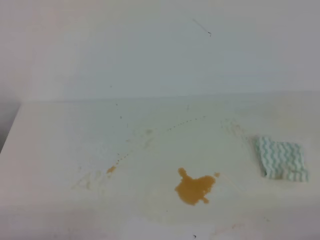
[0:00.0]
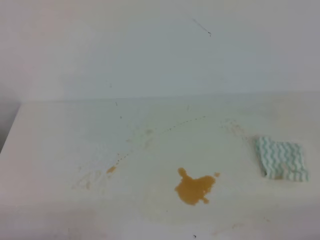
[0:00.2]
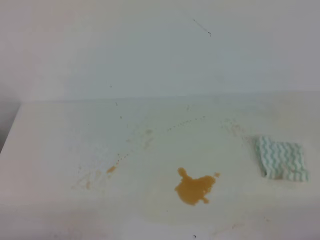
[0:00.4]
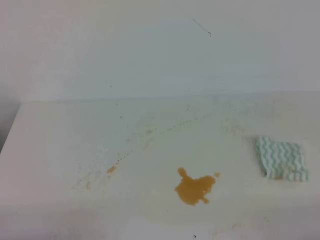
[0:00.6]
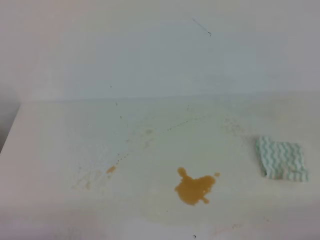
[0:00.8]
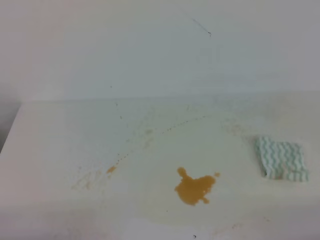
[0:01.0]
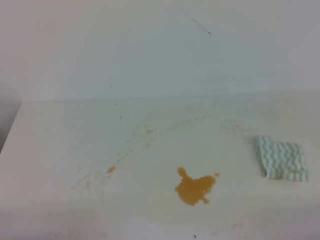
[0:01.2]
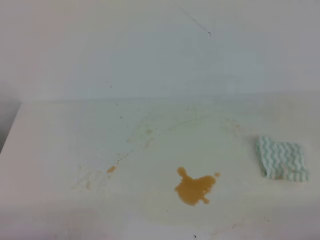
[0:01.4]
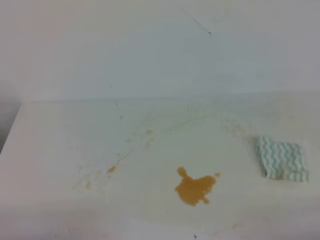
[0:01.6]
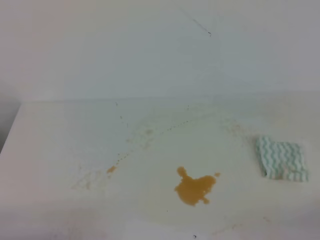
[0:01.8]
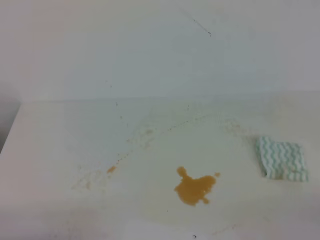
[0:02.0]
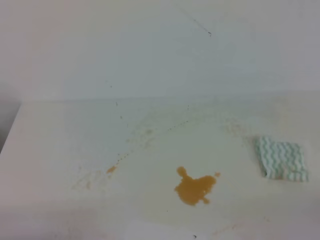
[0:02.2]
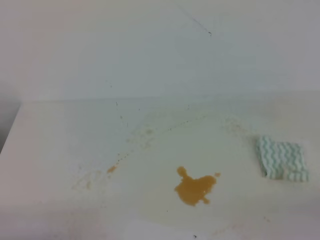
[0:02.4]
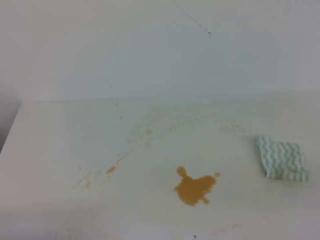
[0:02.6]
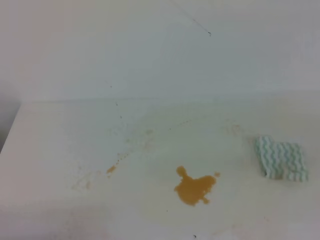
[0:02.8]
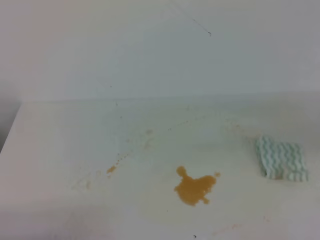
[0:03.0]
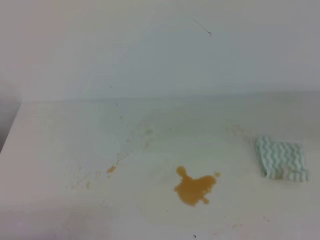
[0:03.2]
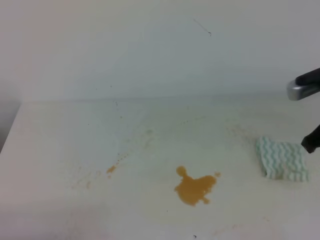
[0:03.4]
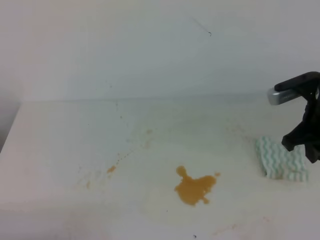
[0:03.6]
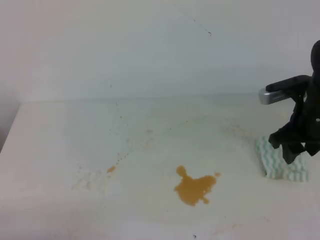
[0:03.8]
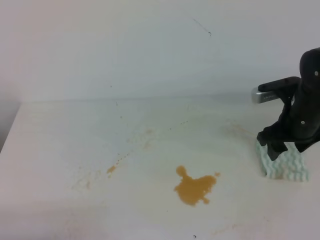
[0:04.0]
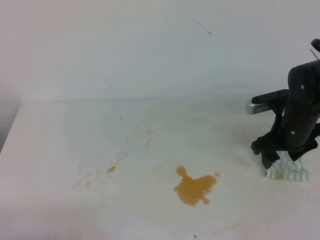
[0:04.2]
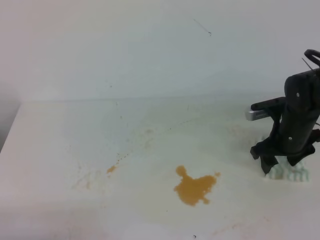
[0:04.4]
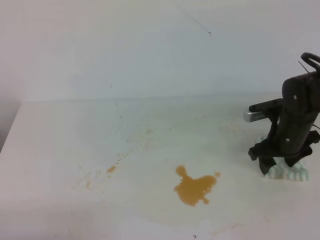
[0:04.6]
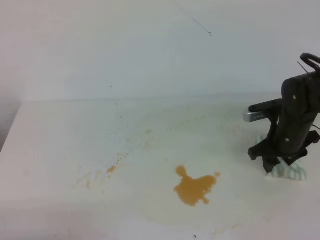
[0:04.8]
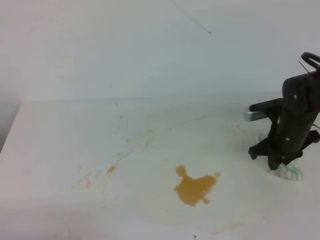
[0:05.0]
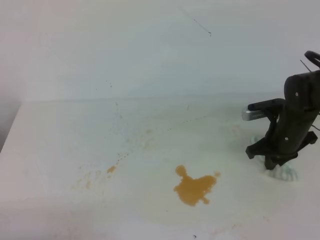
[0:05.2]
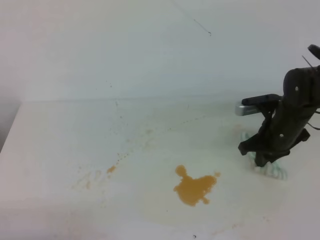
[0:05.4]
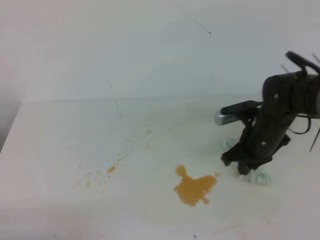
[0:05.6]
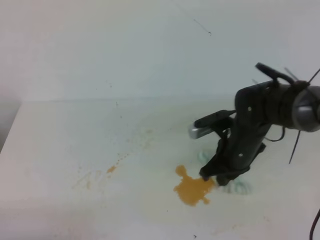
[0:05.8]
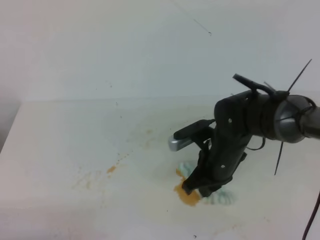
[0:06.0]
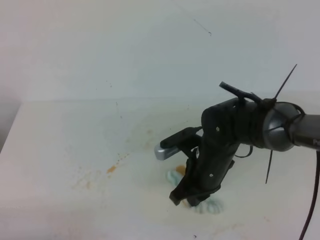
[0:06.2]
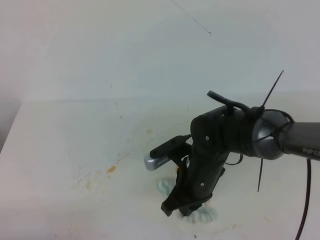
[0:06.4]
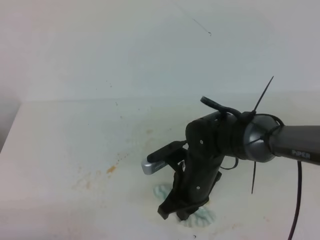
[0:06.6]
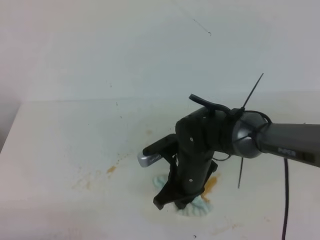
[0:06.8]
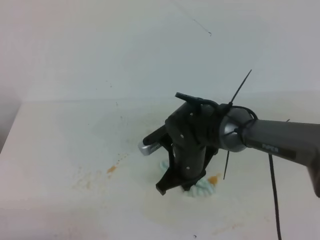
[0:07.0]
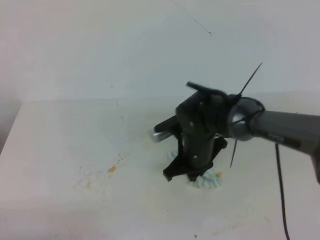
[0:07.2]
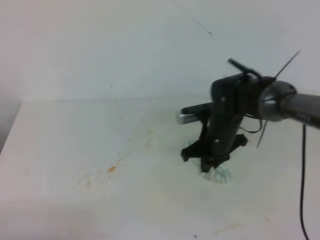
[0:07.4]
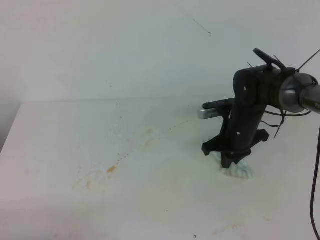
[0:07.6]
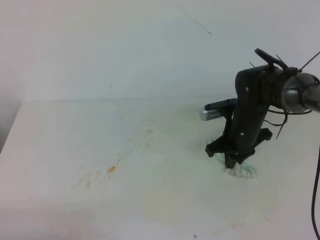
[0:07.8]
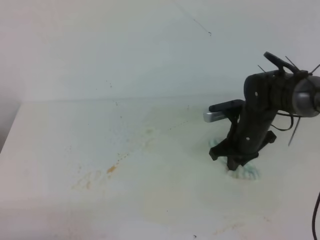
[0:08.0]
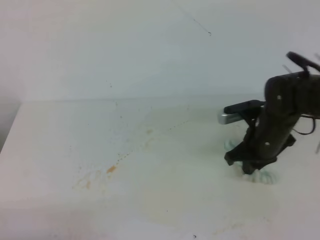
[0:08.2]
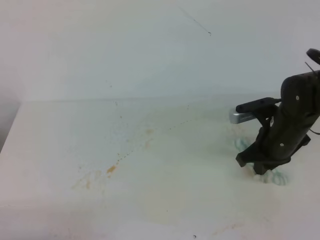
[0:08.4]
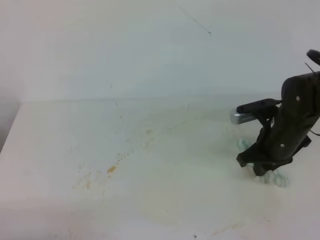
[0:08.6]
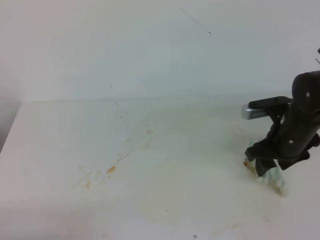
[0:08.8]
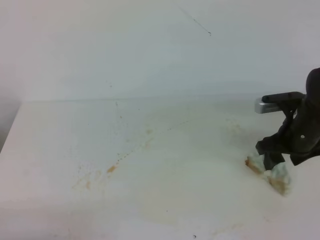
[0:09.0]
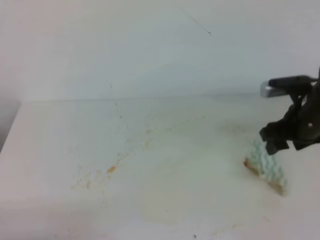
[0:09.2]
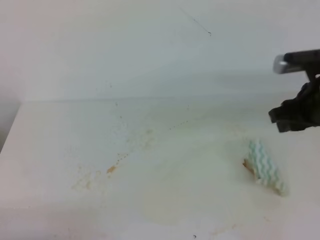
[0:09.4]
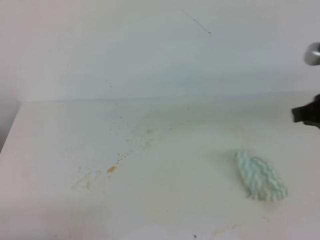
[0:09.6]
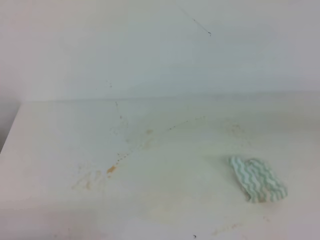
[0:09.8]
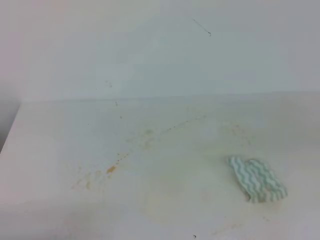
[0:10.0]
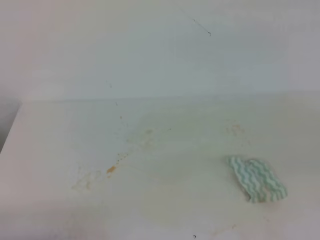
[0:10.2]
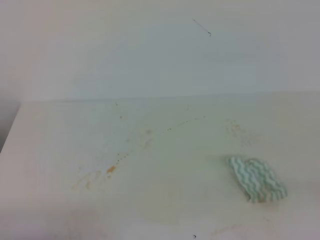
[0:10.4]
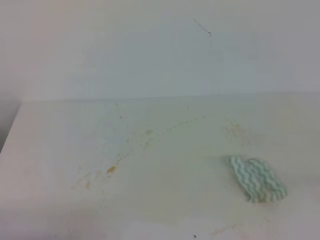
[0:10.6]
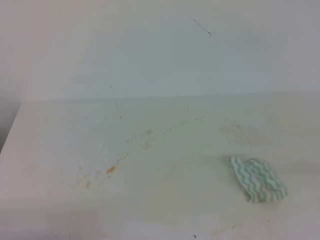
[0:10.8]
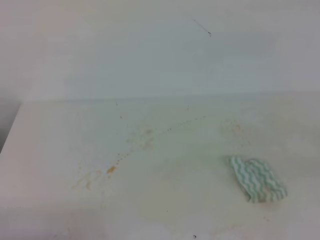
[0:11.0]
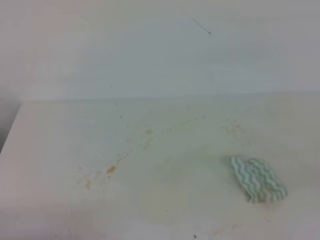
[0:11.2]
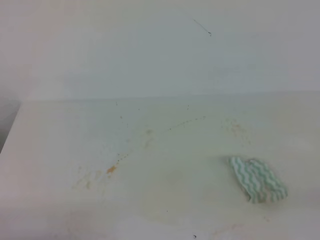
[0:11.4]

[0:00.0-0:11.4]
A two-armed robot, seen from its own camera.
0:00.0 to 0:01.4: Both grippers stay about where they are.
0:02.8 to 0:04.2: The right gripper shifts approximately 30 cm forward and downward, and opens up.
0:04.2 to 0:05.6: The right gripper heads to the left, covering about 5 cm, and closes.
0:05.6 to 0:07.2: The right gripper goes approximately 10 cm to the left.
0:07.2 to 0:08.6: The right gripper moves to the right, about 15 cm.
0:08.6 to 0:10.0: The right gripper moves backward, upward and to the right, approximately 30 cm, and opens, then closes again.
0:10.0 to 0:11.4: The right gripper moves backward and downward, some 10 cm.
